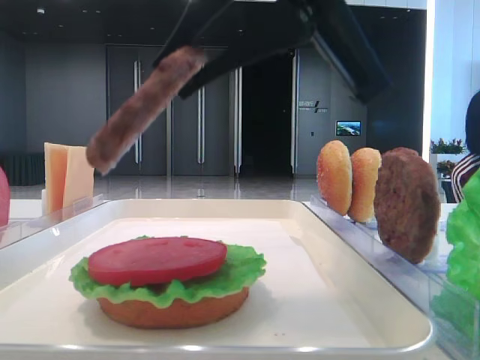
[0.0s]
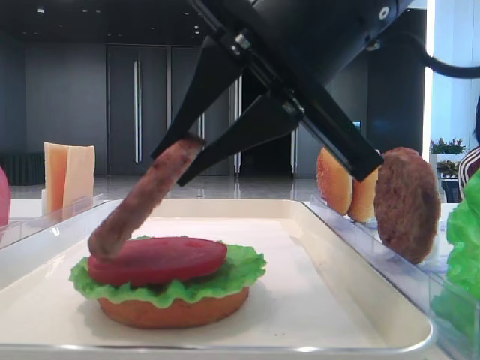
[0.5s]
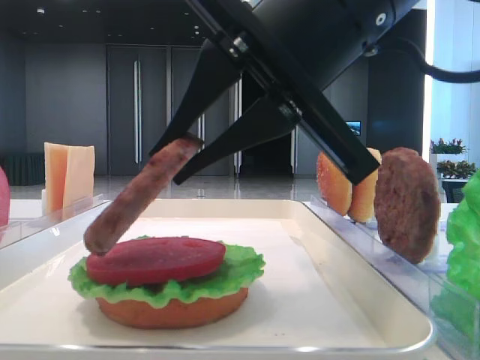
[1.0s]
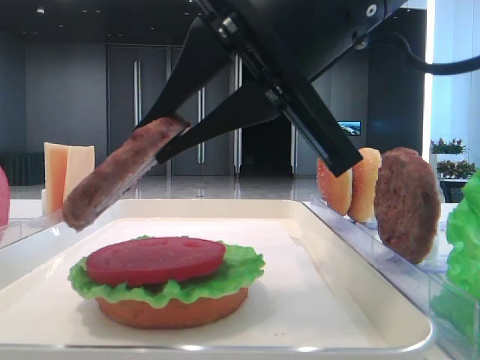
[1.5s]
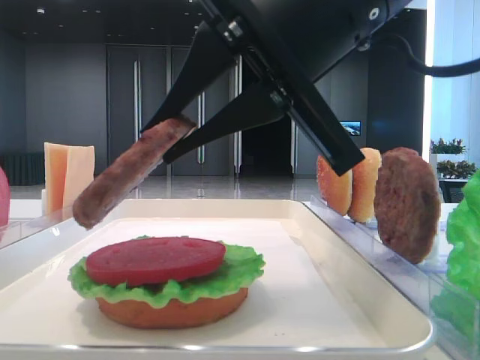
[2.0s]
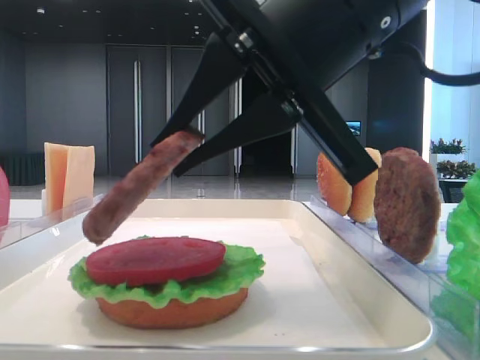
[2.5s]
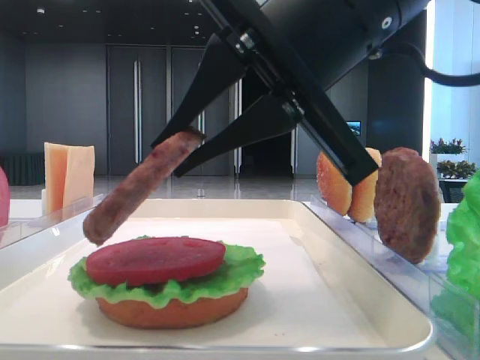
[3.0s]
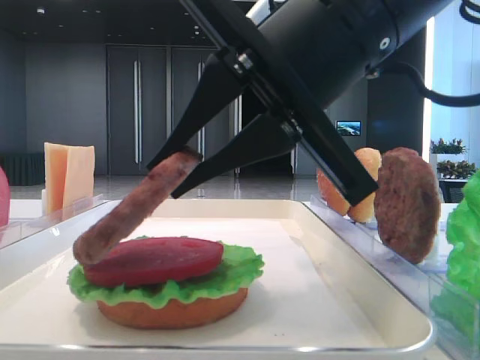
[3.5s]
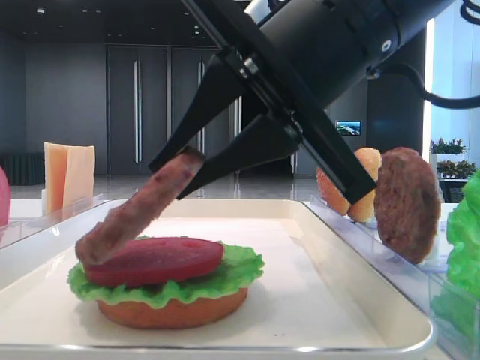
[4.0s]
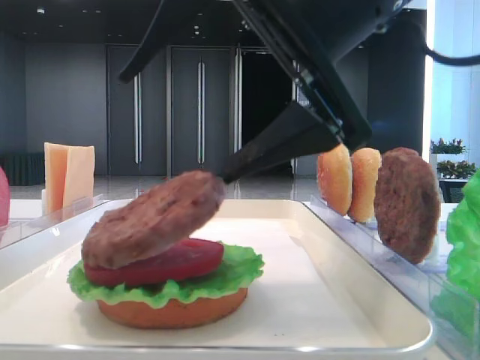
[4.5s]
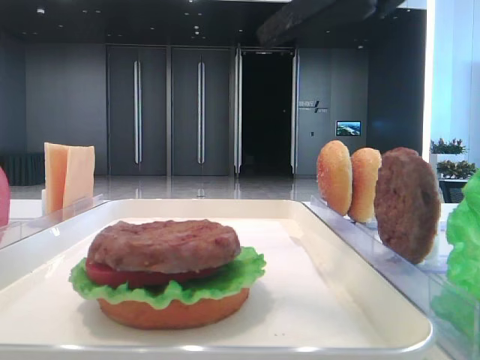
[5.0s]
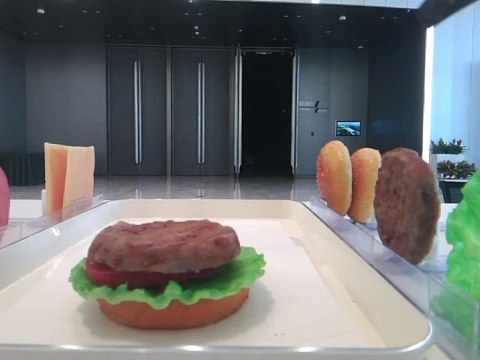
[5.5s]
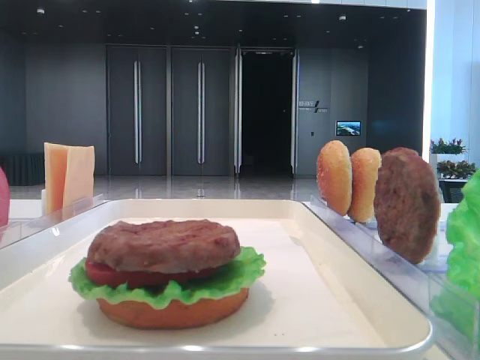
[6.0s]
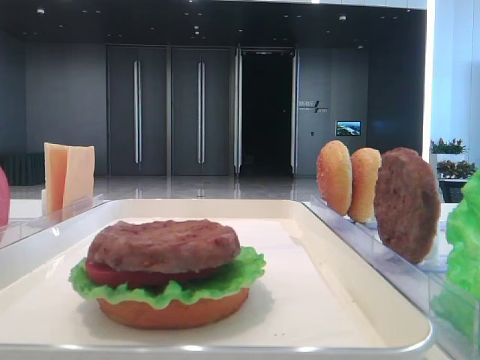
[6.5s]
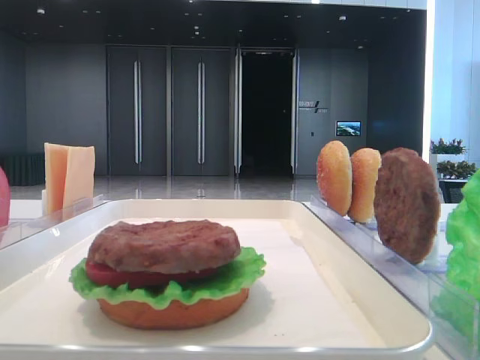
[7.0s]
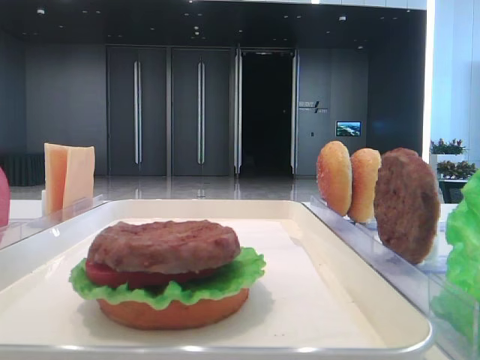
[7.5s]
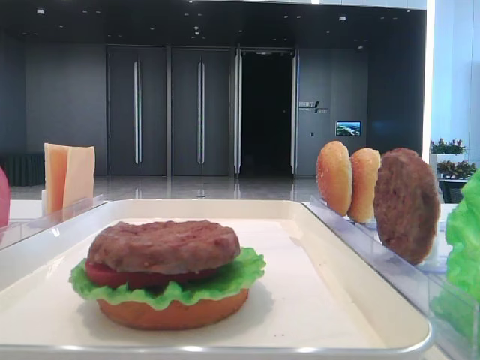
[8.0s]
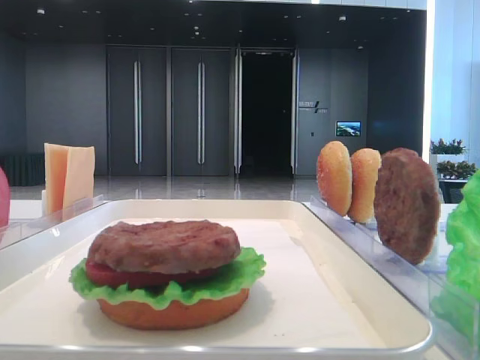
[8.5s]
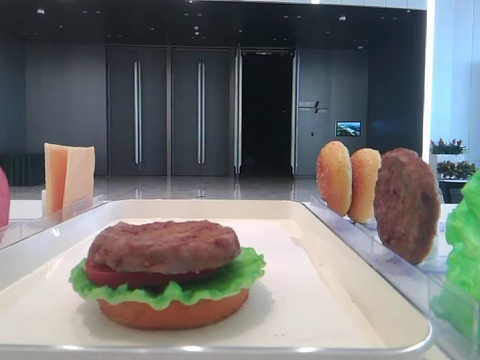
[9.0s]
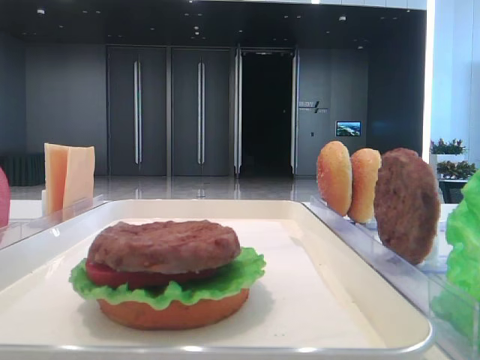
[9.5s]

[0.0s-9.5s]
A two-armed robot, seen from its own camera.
Step, 0.0s to 4.5s: Place the patty on the tomato slice with the right hand.
0.0s to 4.0s: There are only small adjustments of the grippers.
4.0s to 5.5s: The right gripper goes some 15 cm upward and to the right, and opens.

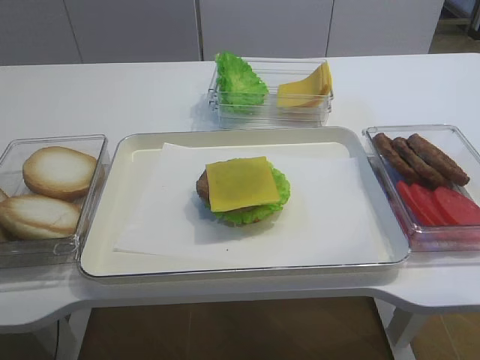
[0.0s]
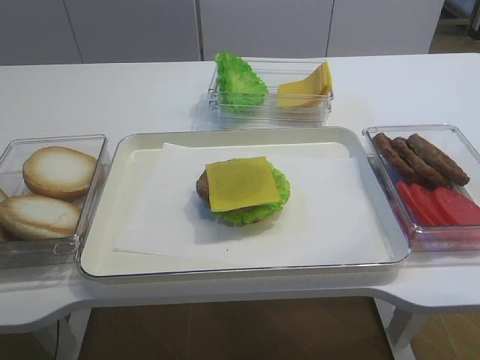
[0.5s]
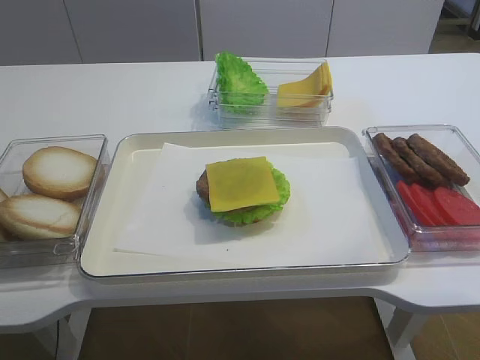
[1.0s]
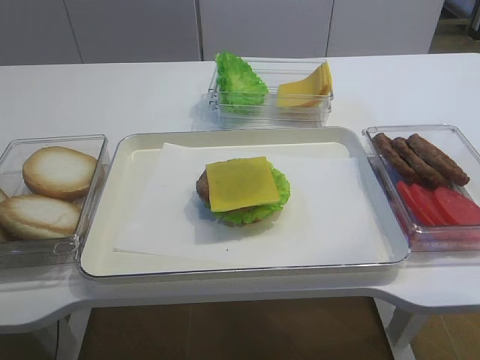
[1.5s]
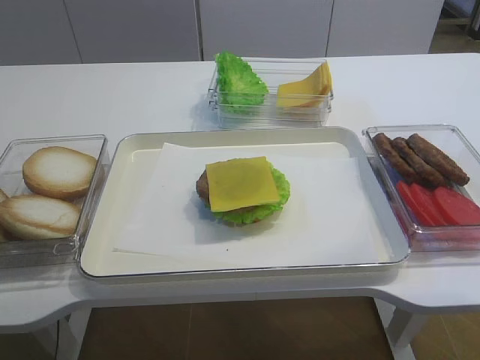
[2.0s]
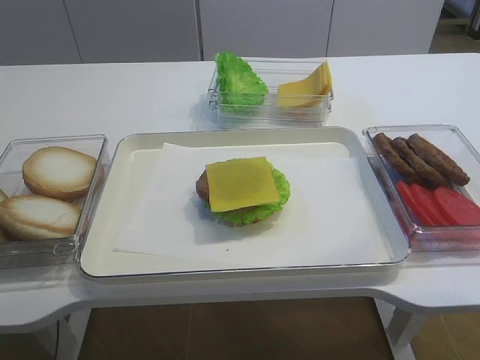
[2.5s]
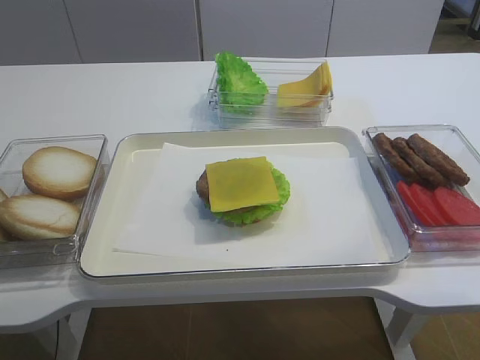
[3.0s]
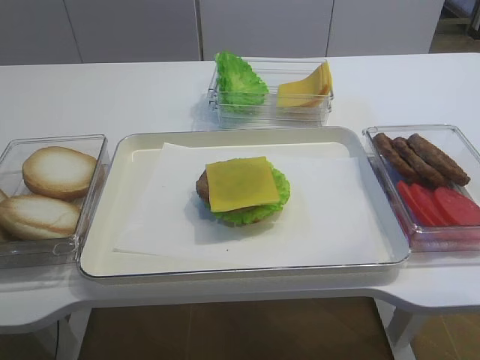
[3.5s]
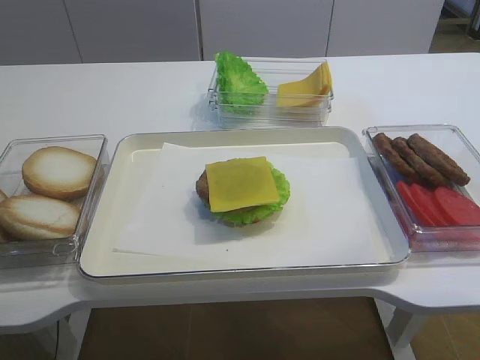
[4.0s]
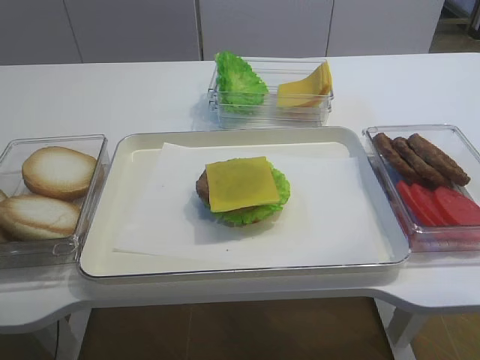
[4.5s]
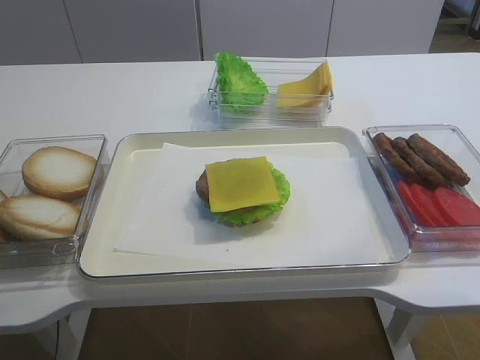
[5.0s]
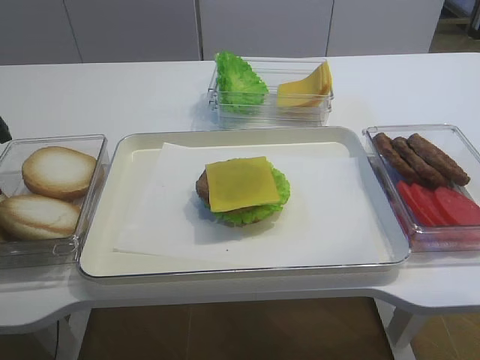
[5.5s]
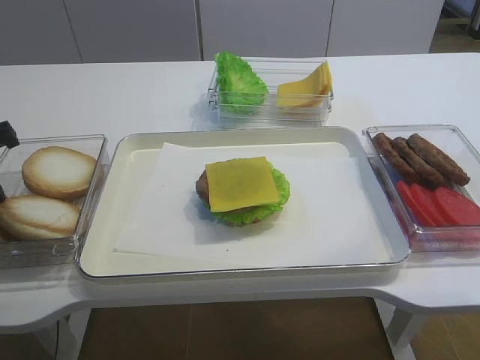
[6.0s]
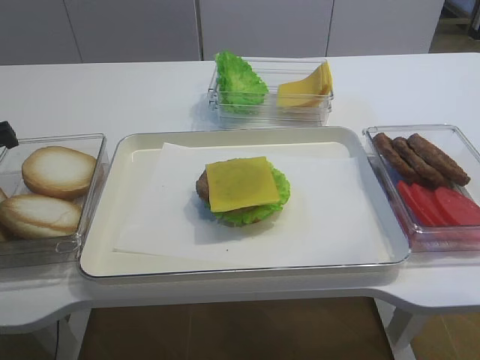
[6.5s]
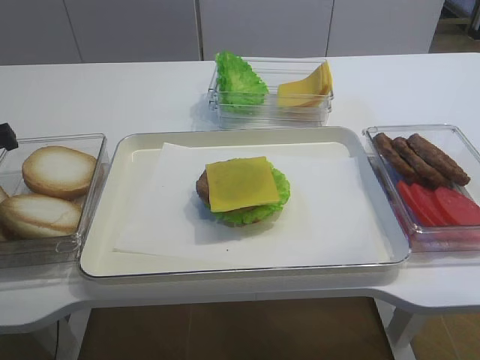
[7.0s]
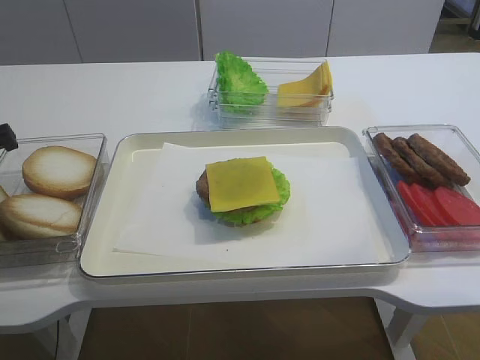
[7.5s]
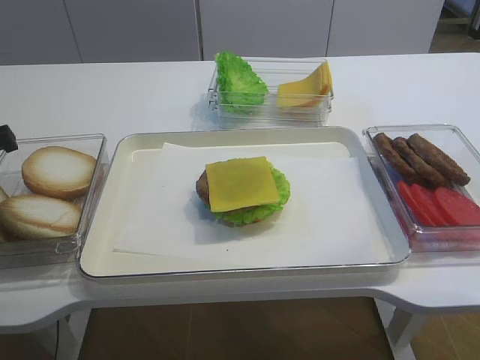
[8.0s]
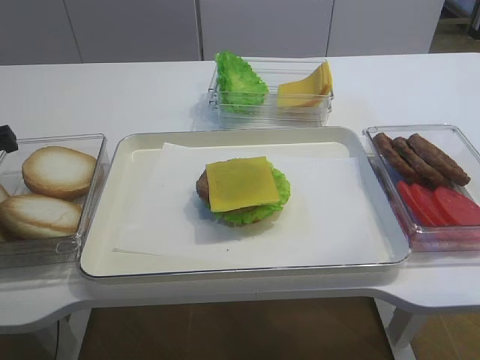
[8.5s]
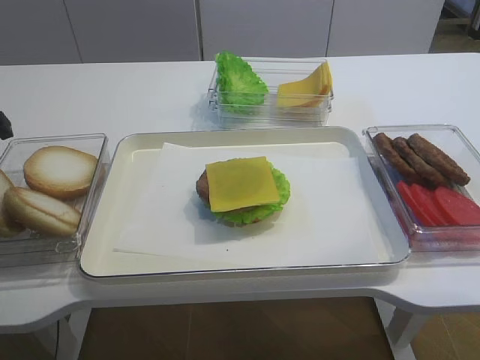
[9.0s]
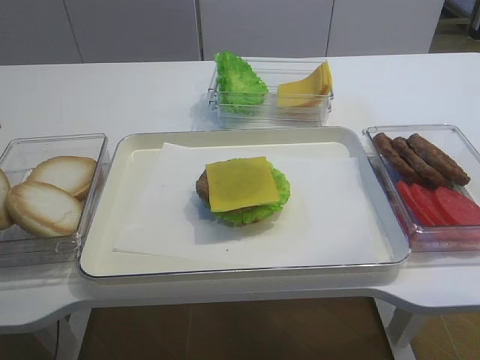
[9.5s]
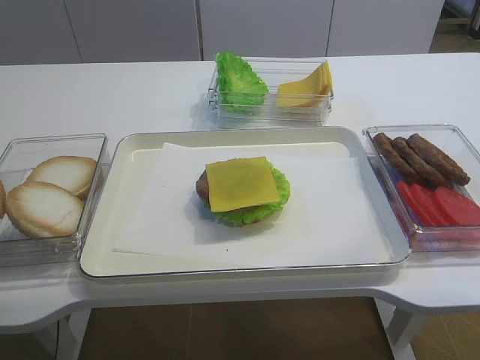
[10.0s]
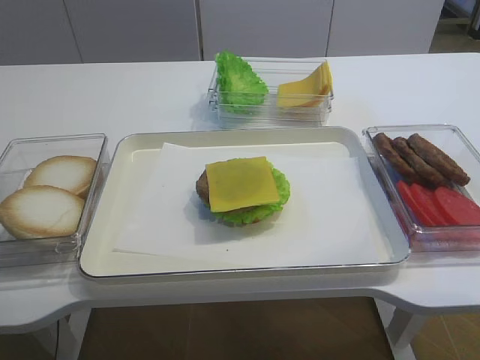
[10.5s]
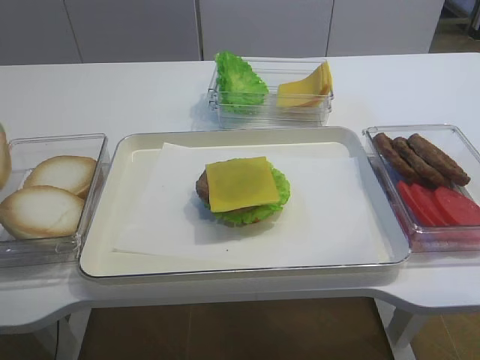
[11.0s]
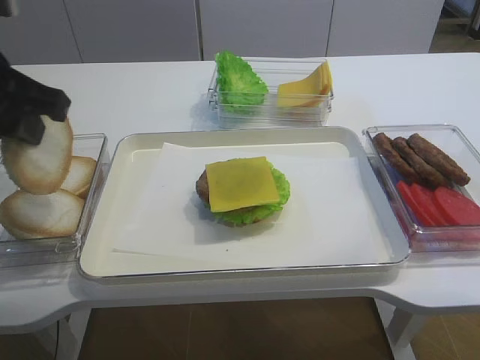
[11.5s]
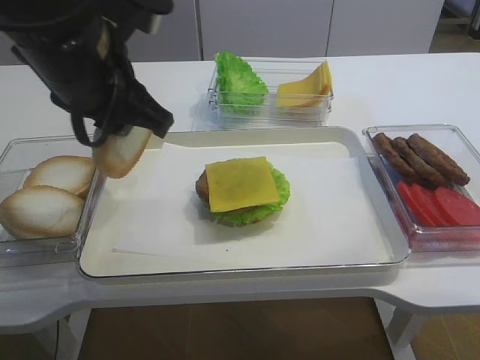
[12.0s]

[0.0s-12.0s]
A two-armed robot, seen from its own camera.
Step, 0.0s to 11.0s: Pick up the hamburger lid with the left gripper.
8.0s to 10.0s: The left gripper changes place by approximately 5 cm.
10.0s to 12.0s: The left gripper shifts roughly 15 cm to the right.

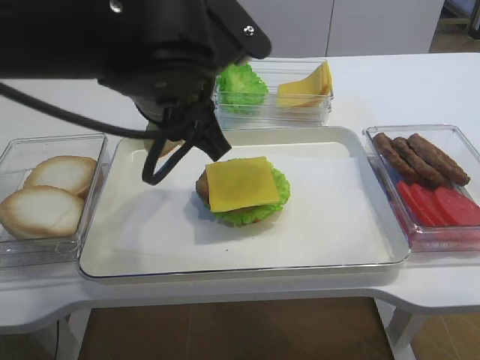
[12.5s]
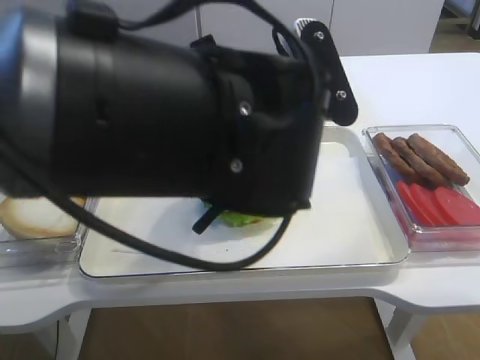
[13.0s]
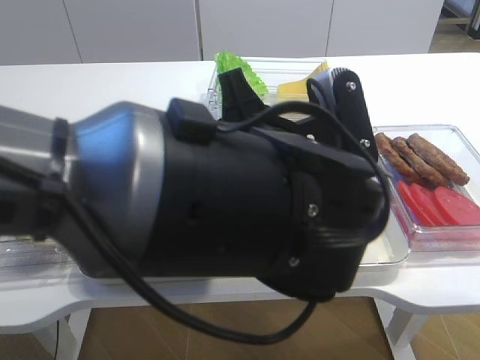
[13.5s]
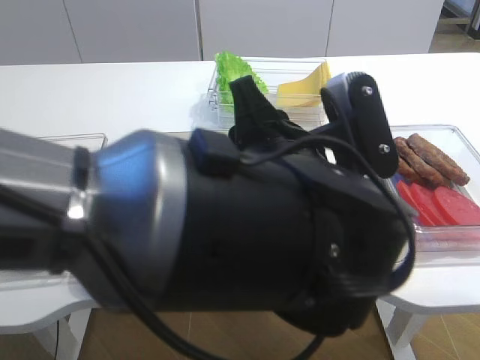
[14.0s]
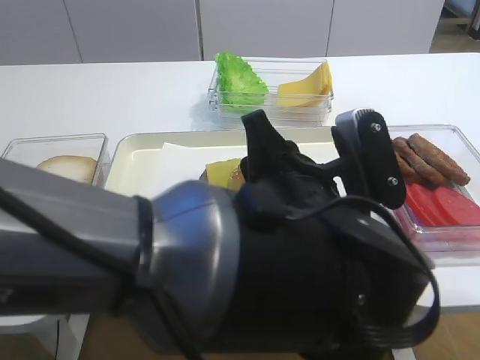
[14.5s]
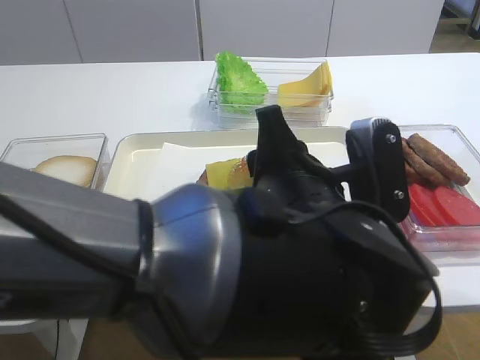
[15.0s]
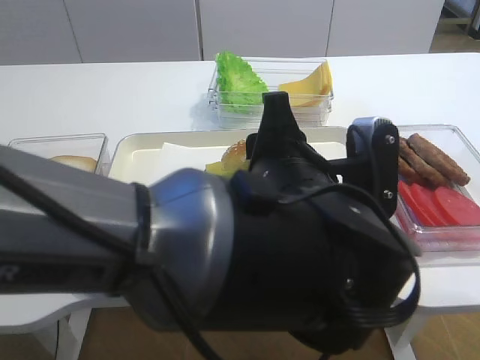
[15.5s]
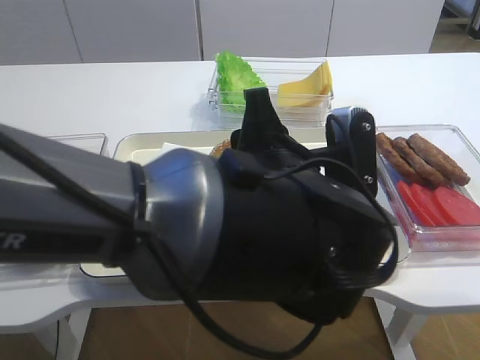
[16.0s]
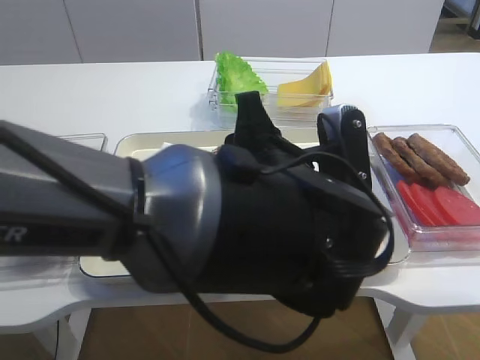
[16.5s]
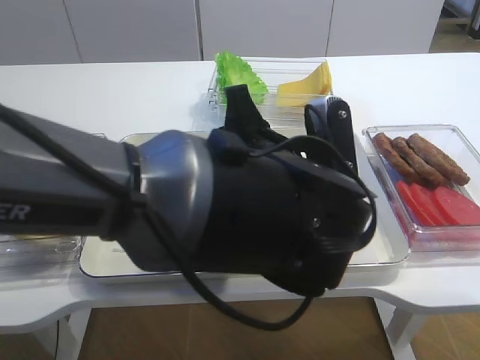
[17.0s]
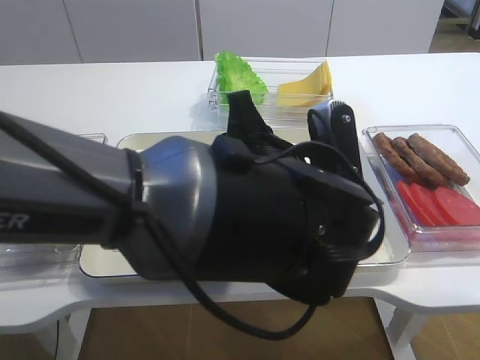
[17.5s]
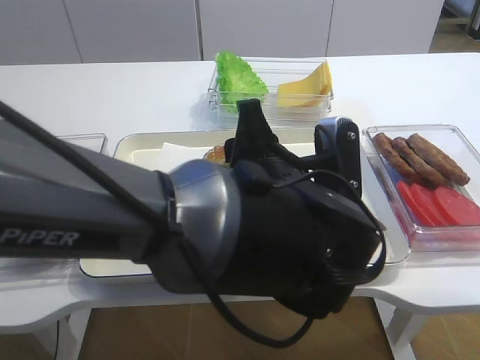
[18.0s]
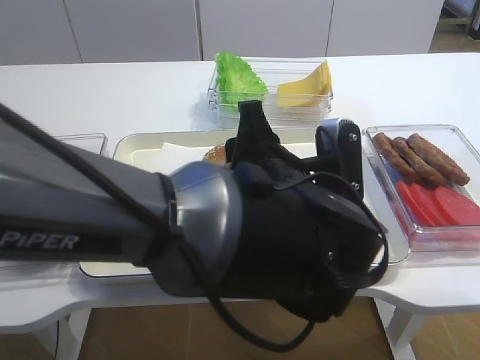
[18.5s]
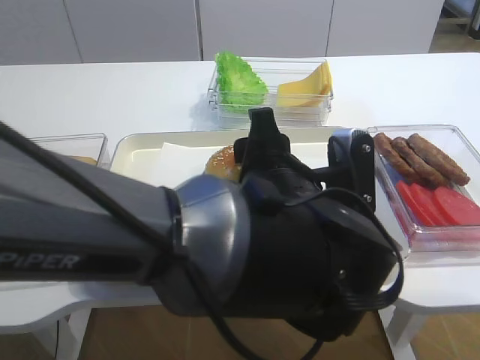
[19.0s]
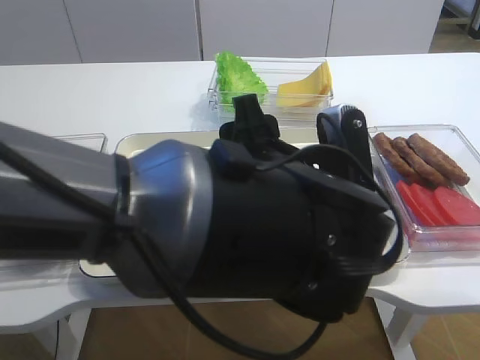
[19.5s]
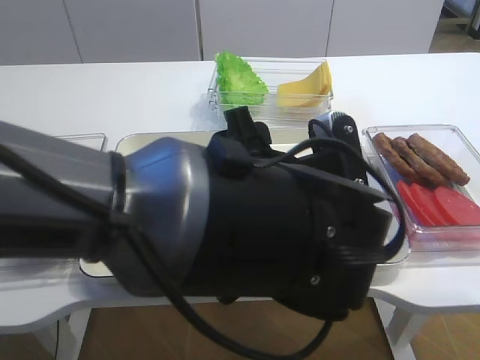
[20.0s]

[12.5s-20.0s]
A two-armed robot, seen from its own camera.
Step, 12.5s to 19.5s: Place the hamburger lid on the cheese slice with the left gripper.
12.5s to 14.5s: The left gripper goes roughly 15 cm to the right, downward and backward.
16.5s to 18.0s: The grippers move only a little.
18.0s to 20.0s: The left gripper opens.
